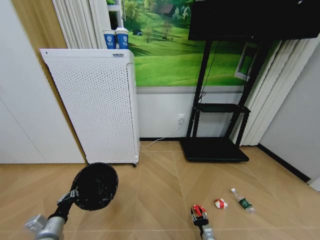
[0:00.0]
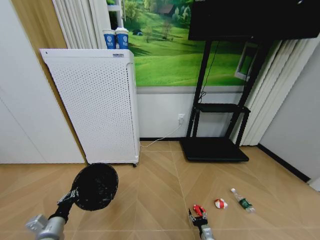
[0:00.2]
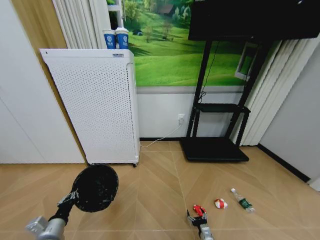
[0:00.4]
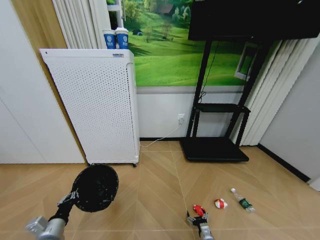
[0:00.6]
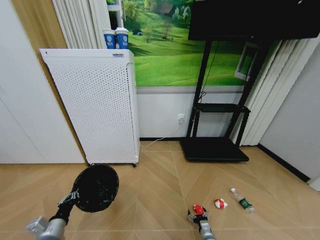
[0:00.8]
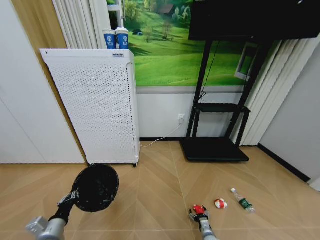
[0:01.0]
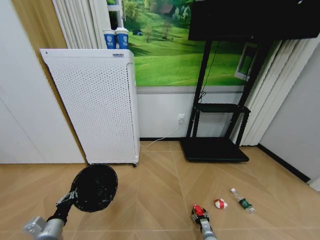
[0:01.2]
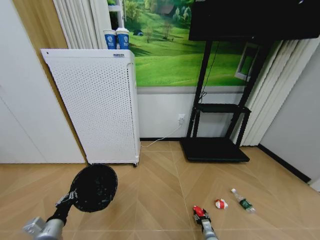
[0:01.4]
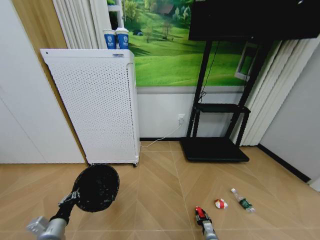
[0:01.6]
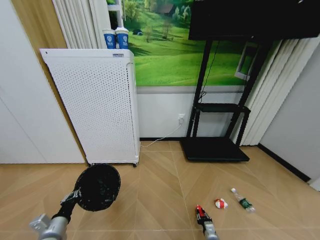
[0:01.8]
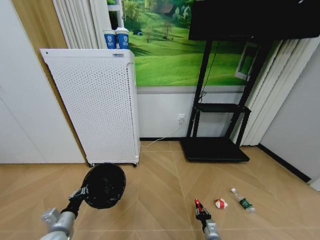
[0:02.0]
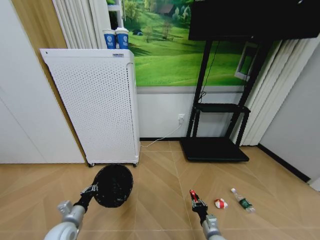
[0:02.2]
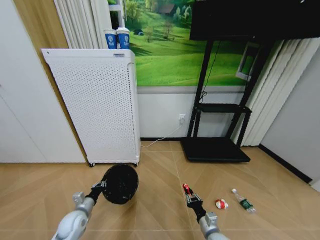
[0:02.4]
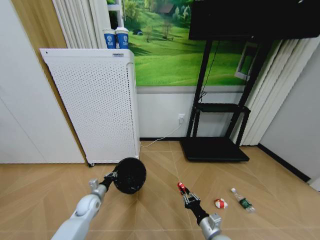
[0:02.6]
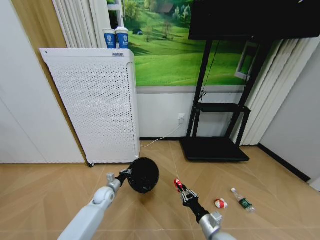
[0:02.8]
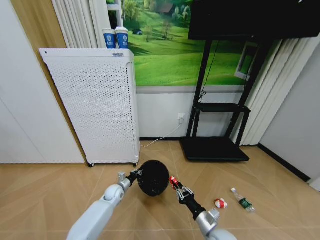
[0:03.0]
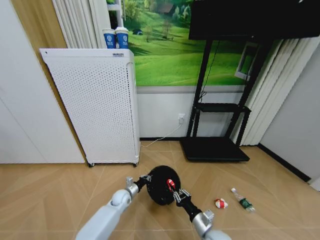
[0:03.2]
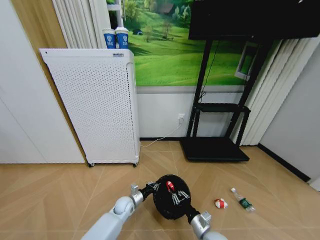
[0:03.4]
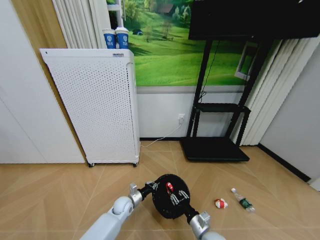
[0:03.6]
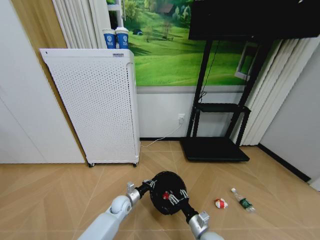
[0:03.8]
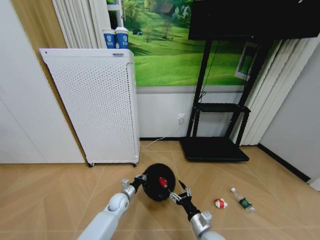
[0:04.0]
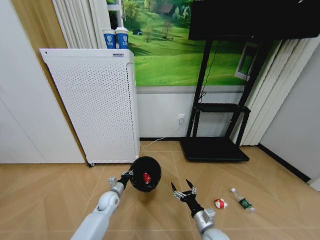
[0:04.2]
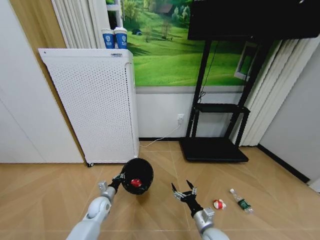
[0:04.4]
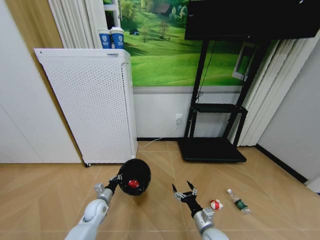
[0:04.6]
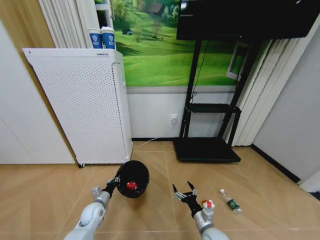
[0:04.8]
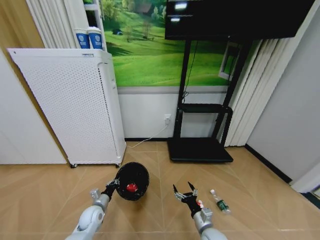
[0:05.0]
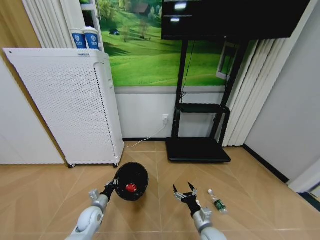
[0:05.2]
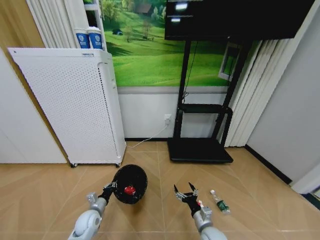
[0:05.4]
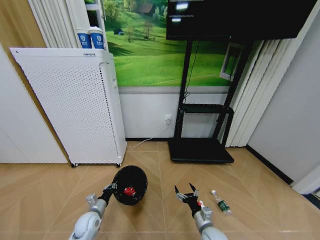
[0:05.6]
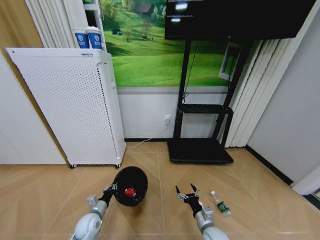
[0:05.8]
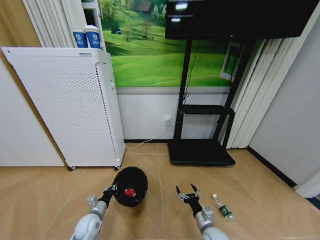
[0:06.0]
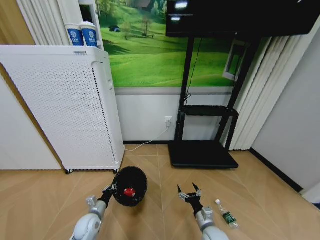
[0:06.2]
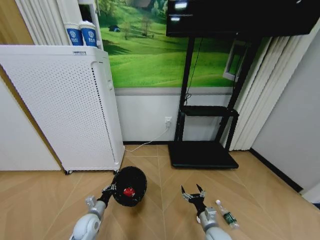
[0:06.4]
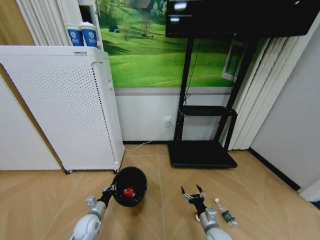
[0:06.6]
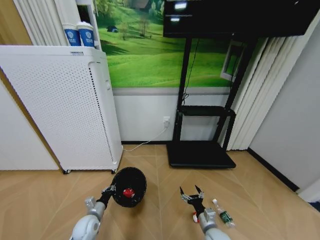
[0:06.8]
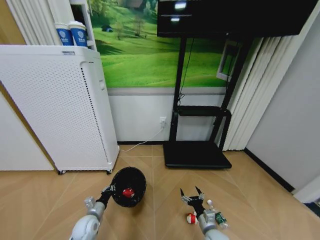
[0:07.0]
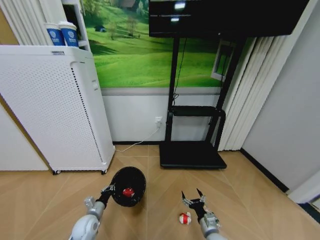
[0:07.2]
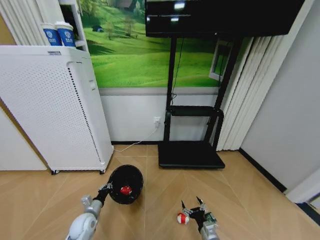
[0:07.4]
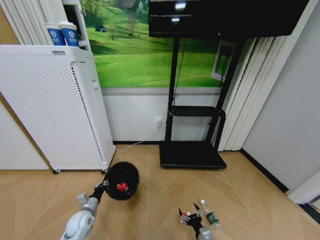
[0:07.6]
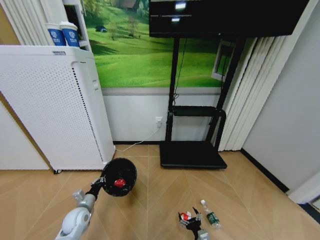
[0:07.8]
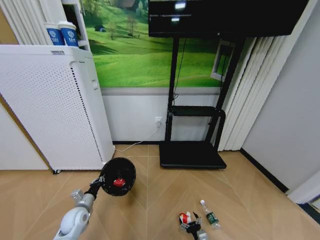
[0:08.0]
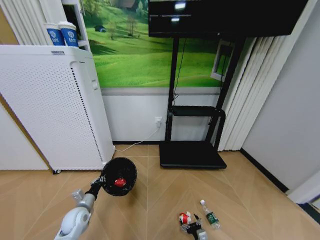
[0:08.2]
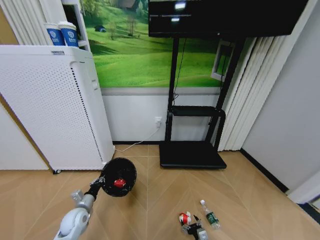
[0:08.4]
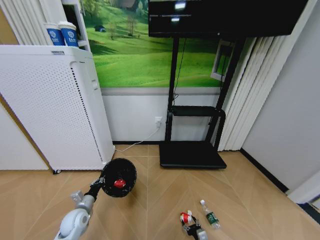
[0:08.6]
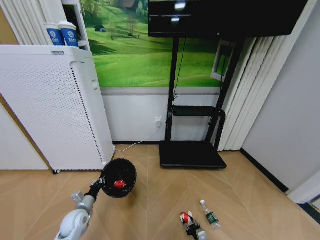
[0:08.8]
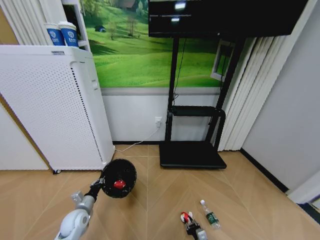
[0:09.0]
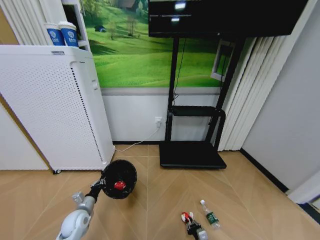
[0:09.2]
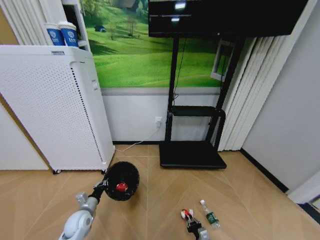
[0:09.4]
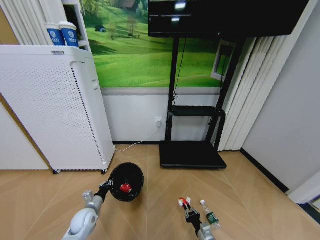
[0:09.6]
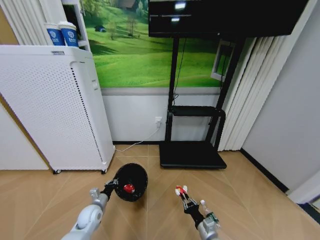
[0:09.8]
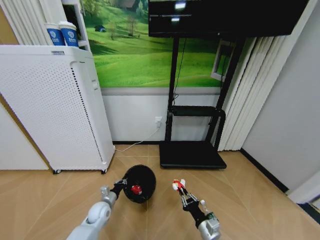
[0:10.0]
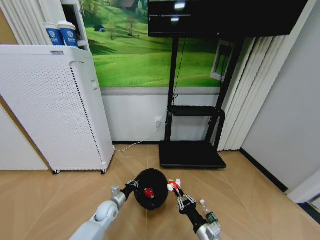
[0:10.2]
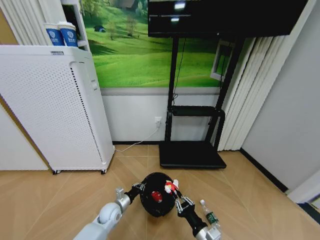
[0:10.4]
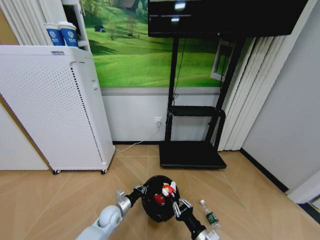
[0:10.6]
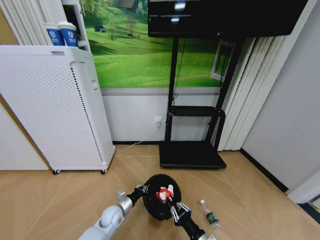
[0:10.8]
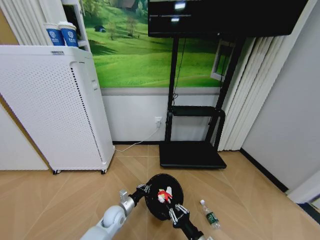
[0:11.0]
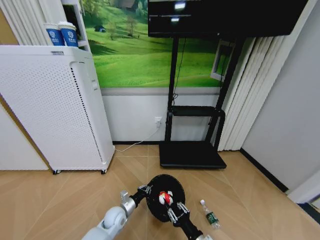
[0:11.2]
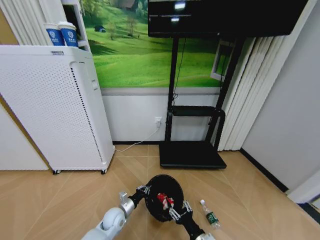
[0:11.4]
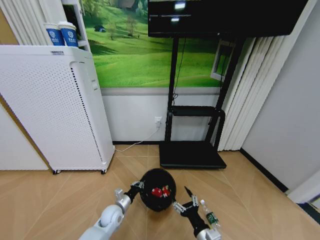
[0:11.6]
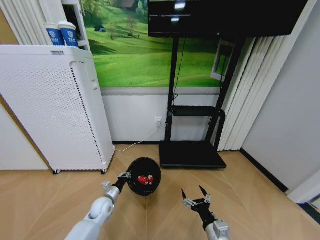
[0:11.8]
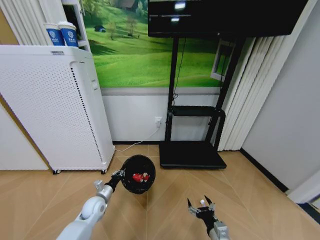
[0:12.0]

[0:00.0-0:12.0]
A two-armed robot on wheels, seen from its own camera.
Task of the whole recording: Pick up the trash bin and place the garbage on the floor into it.
0:00.0 to 0:01.6: The right gripper shifts by roughly 5 cm, and opens and closes again.
0:01.6 to 0:03.0: The left gripper is displaced forward and to the right by about 30 cm, while the right gripper heads upward, covering roughly 20 cm.
0:03.0 to 0:04.4: The left gripper travels backward by roughly 5 cm. The right gripper opens.
0:04.4 to 0:06.0: The left gripper goes about 10 cm backward.
0:06.0 to 0:07.6: The right gripper is displaced downward and backward by roughly 10 cm.
0:07.6 to 0:09.0: The right gripper travels downward by some 5 cm, and closes.
0:09.0 to 0:10.4: The left gripper is displaced to the right by about 15 cm. Meanwhile the right gripper heads upward, covering roughly 20 cm.
0:10.4 to 0:12.0: The left gripper shifts roughly 5 cm to the left. The right gripper opens its fingers.

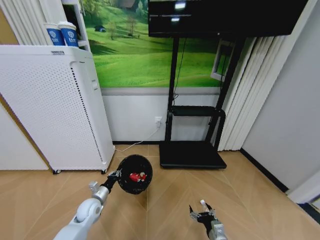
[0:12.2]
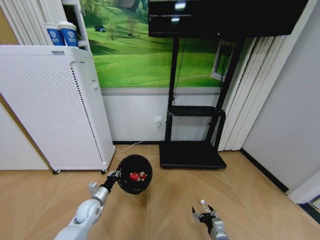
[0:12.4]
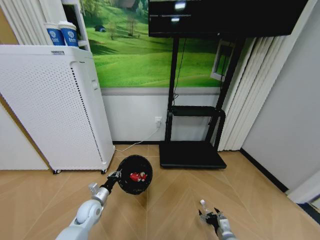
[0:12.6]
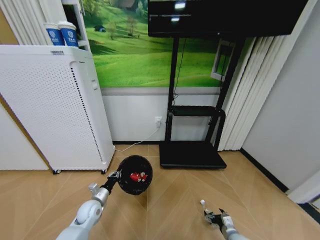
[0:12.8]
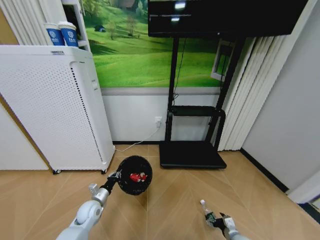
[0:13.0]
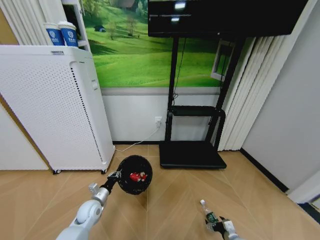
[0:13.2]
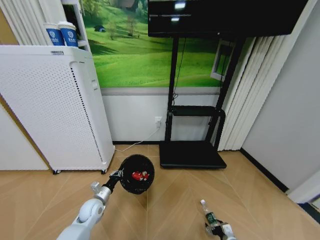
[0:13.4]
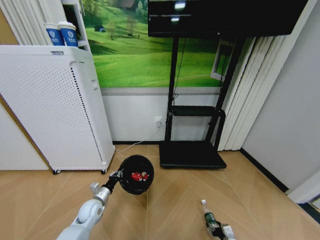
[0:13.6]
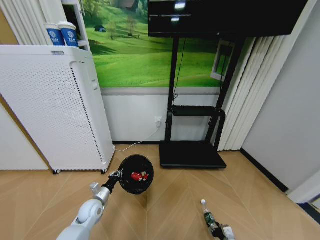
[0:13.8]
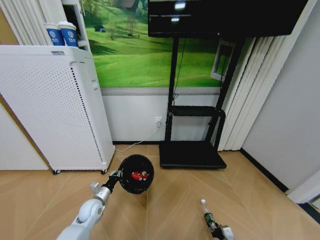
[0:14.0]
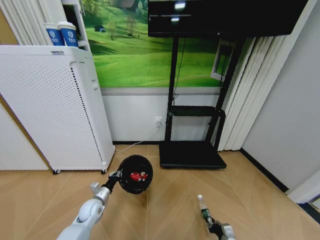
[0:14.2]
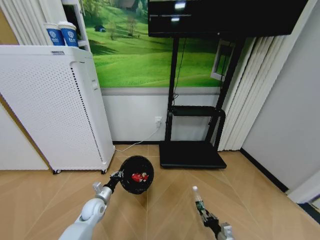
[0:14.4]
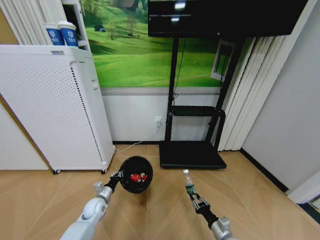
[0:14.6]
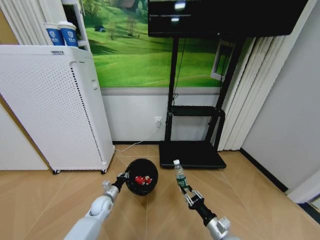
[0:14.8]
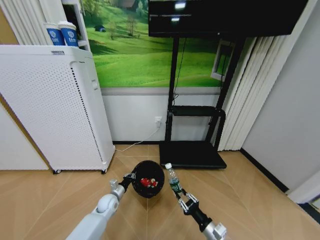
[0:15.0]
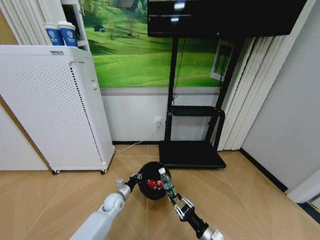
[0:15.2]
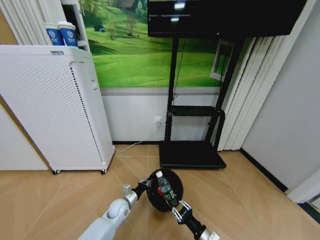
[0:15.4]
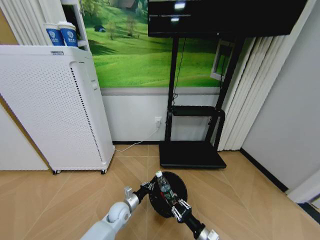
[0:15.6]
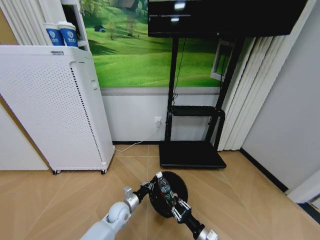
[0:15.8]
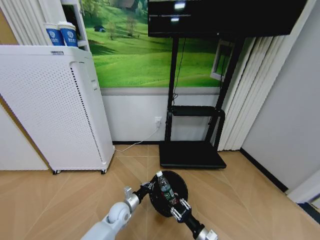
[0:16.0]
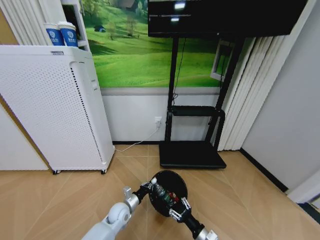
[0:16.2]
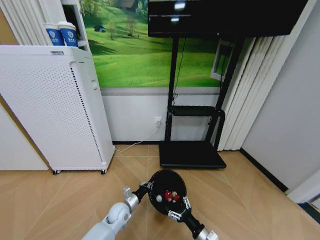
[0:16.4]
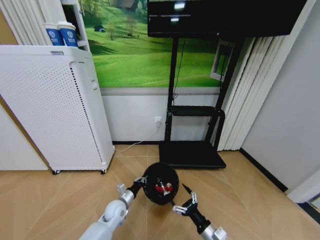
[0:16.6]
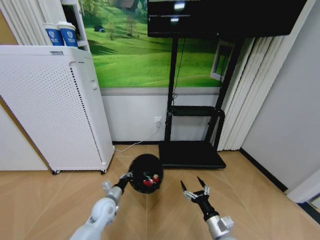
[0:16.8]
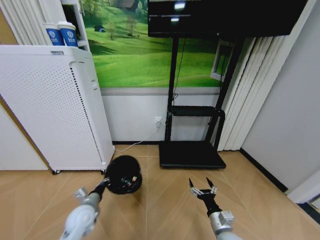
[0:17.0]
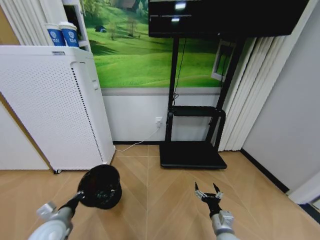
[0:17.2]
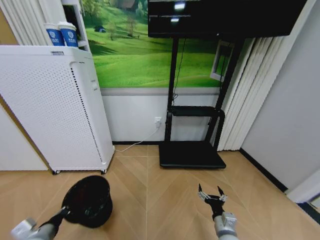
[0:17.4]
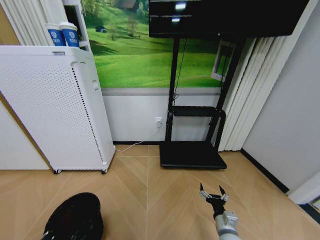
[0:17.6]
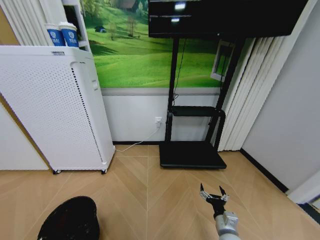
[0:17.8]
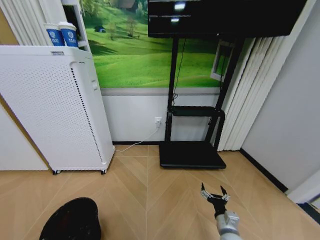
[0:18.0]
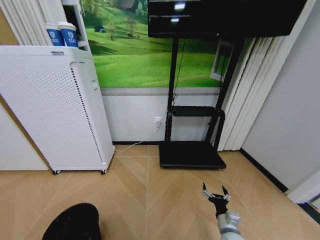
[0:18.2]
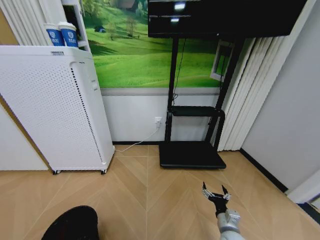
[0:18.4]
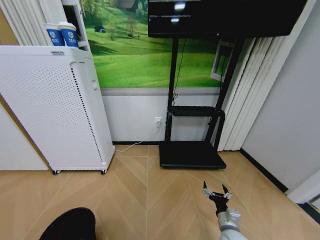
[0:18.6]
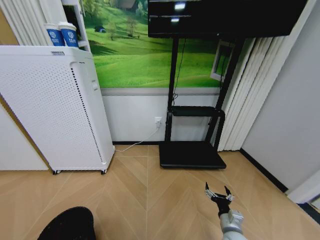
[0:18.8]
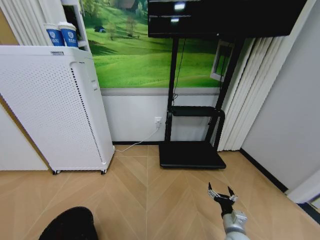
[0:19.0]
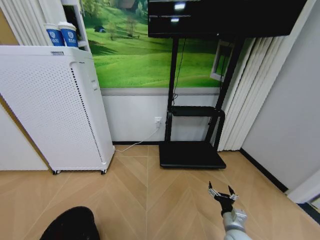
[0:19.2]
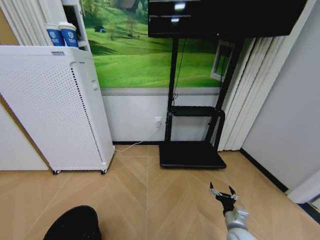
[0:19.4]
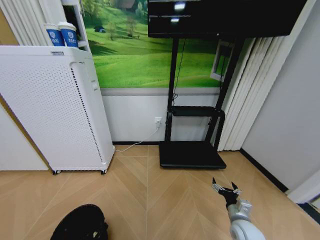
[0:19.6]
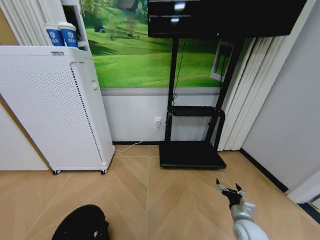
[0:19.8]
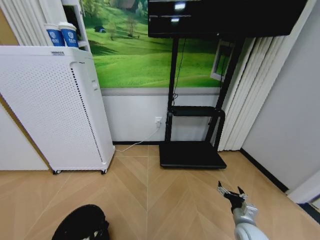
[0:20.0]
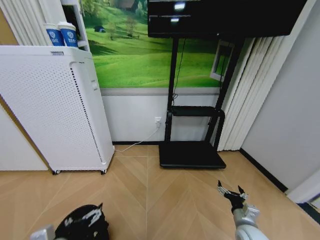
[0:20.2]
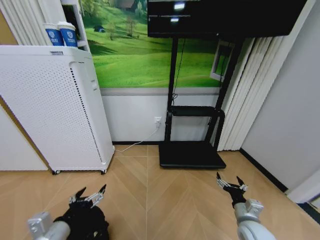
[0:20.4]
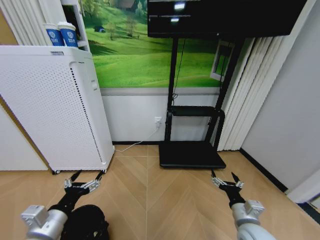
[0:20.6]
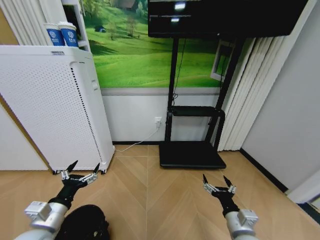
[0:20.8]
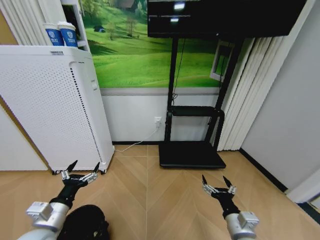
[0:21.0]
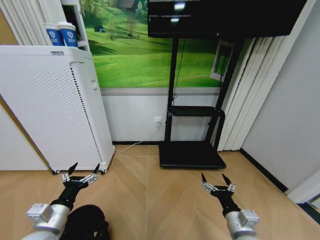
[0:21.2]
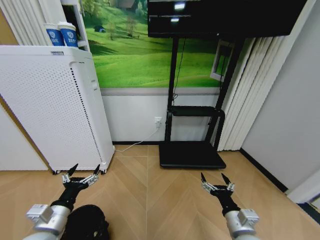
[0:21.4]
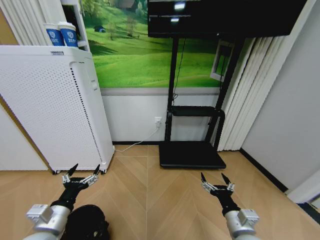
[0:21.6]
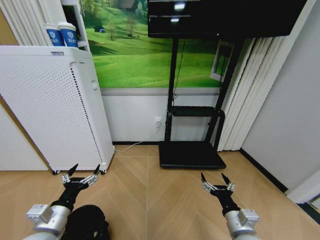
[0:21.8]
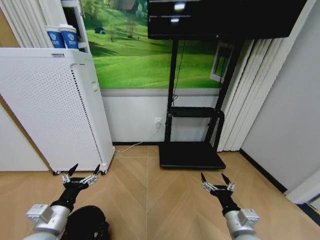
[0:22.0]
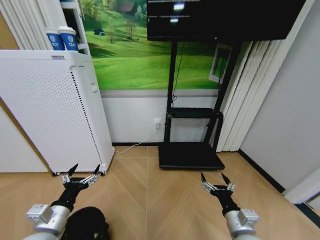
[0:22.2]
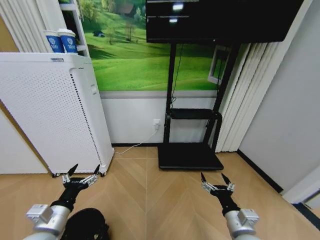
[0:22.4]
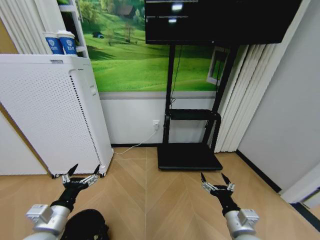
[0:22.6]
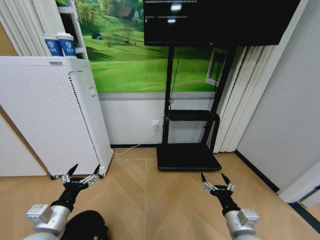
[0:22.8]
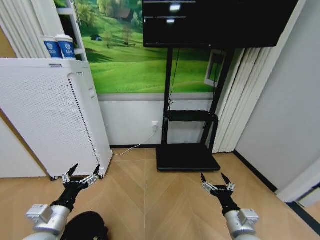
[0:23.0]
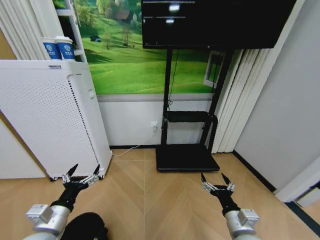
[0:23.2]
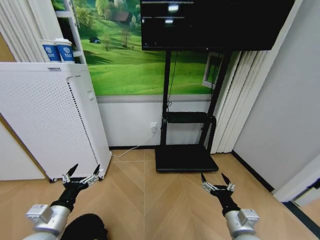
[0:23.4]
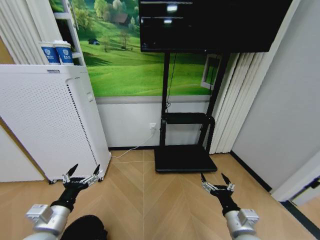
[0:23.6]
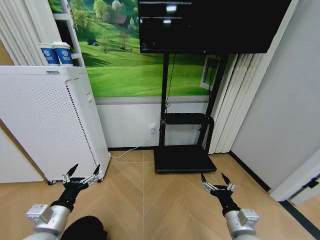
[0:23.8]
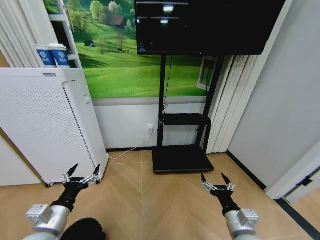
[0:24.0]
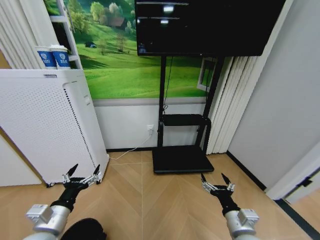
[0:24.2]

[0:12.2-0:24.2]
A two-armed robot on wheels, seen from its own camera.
Task of the whole recording: Pick up the trash bin and place the garbage on the floor into it.
0:12.2 to 0:13.8: The right gripper heads to the right and downward, covering about 15 cm, and closes up.
0:13.8 to 0:15.2: The left gripper shifts some 10 cm to the right. Meanwhile the right gripper moves upward and to the left, about 20 cm.
0:15.2 to 0:16.6: The right gripper opens its fingers. Meanwhile the left gripper moves approximately 5 cm.
0:16.6 to 0:18.2: The left gripper moves backward, to the left and upward, roughly 35 cm. The right gripper shifts by some 5 cm.
0:18.2 to 0:19.8: Both grippers travel together to the right, about 10 cm. The left gripper opens up.
0:19.8 to 0:21.2: The right gripper goes roughly 15 cm upward, to the left and backward. The left gripper is displaced forward by approximately 15 cm.
